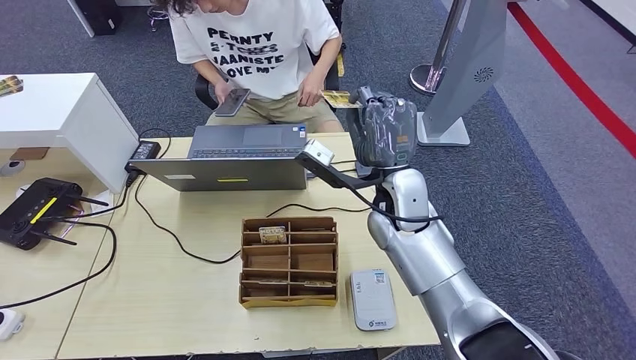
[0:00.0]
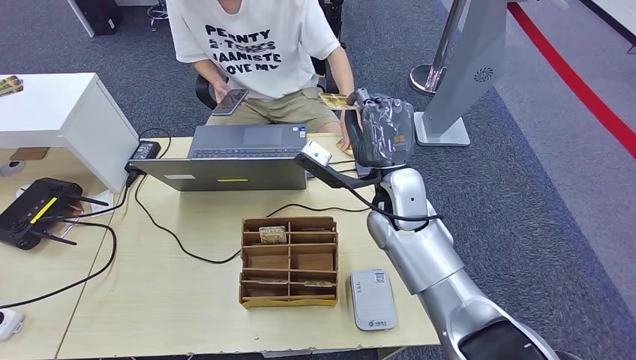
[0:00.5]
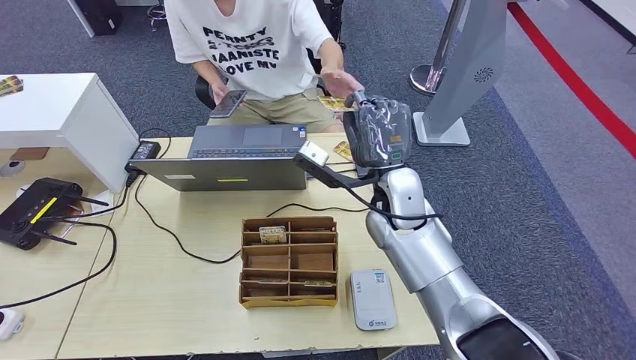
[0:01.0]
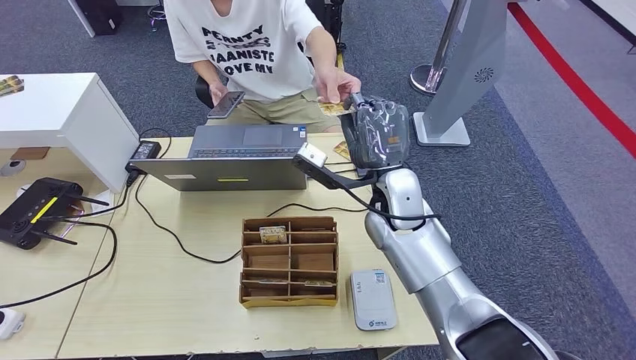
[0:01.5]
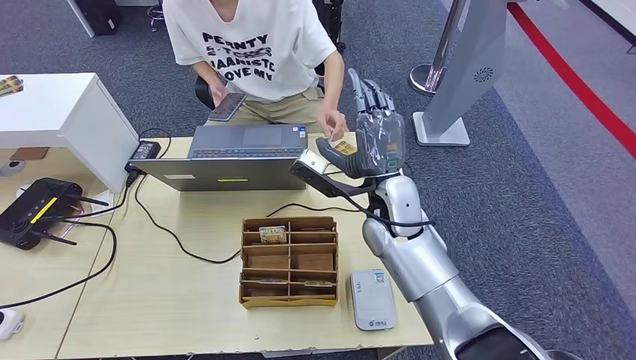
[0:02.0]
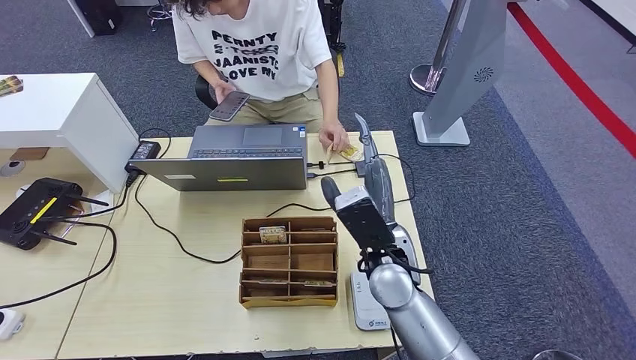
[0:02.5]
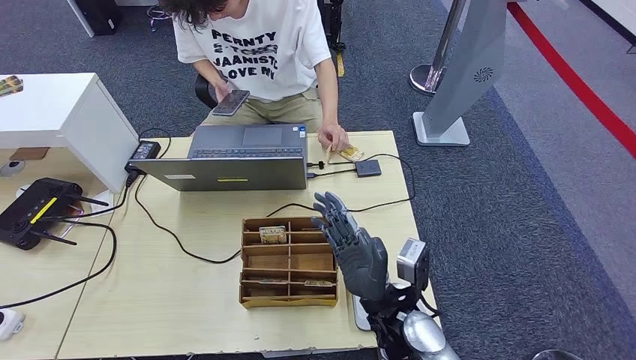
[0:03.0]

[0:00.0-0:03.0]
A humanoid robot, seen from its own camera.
Step, 0:00.0 to 0:03.0: Hand the room key to the person.
0:00.0 to 0:01.5: The two hands keep their place.
0:01.5 to 0:03.0: The right hand shifts about 20 cm backward and downward.

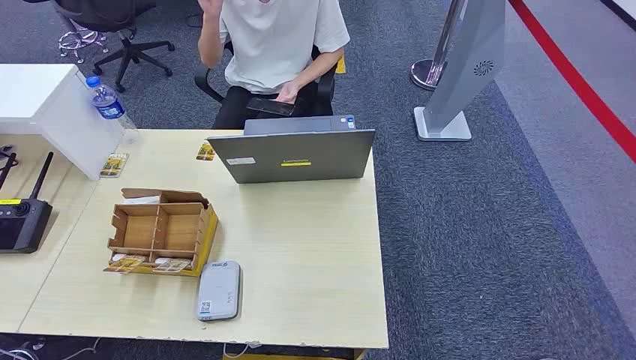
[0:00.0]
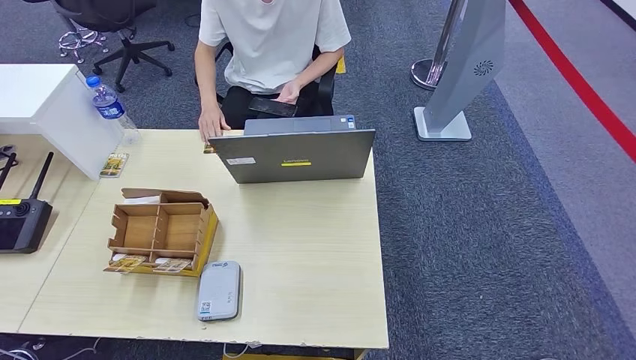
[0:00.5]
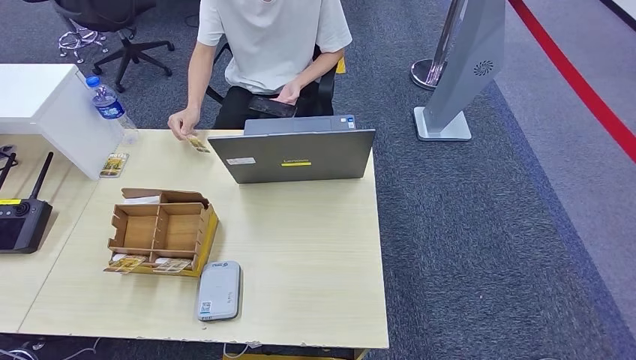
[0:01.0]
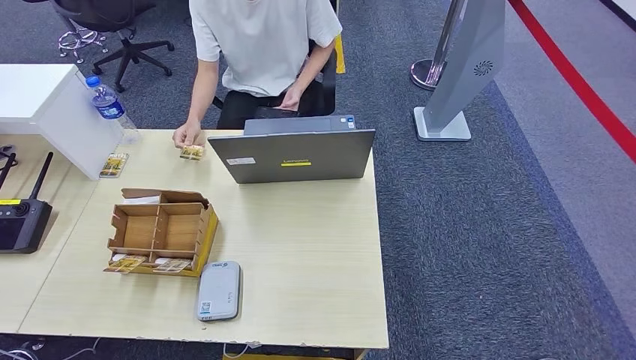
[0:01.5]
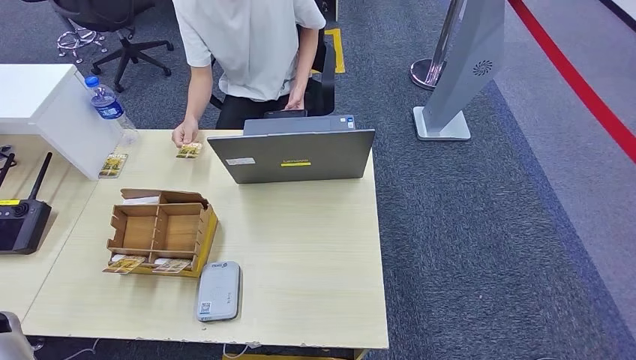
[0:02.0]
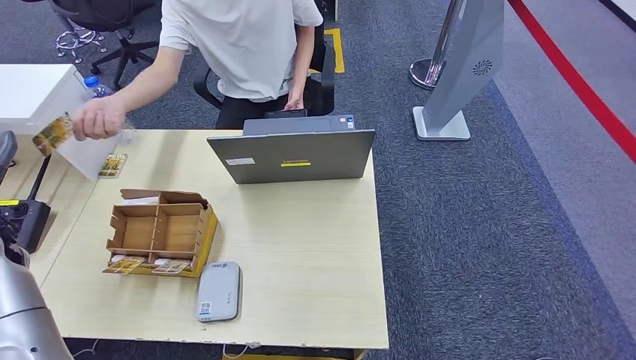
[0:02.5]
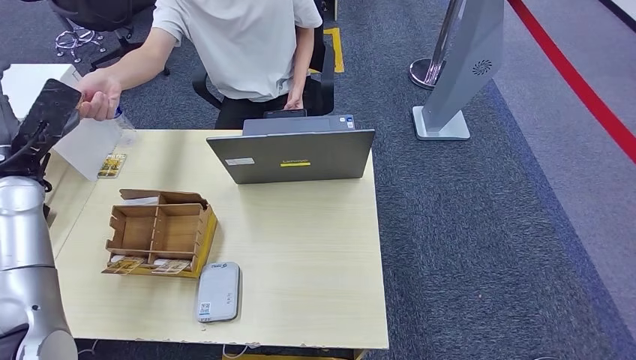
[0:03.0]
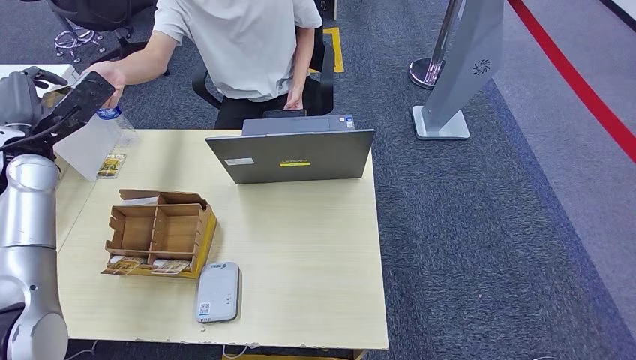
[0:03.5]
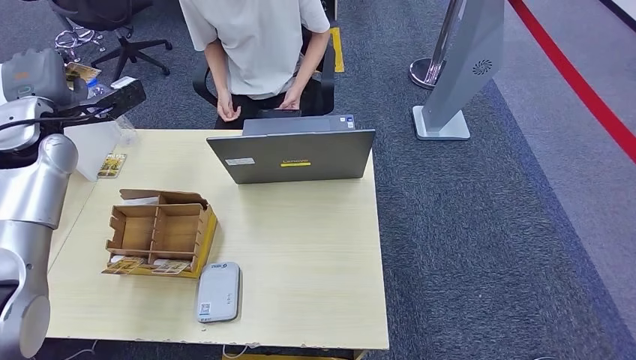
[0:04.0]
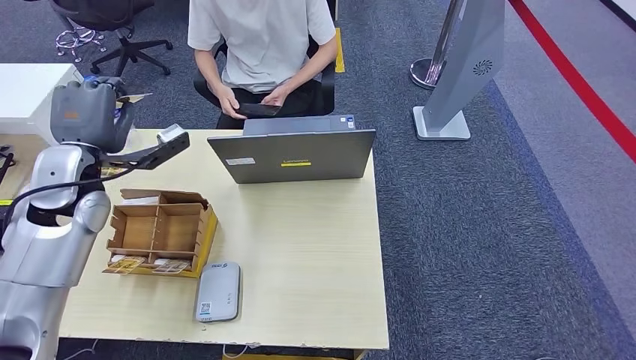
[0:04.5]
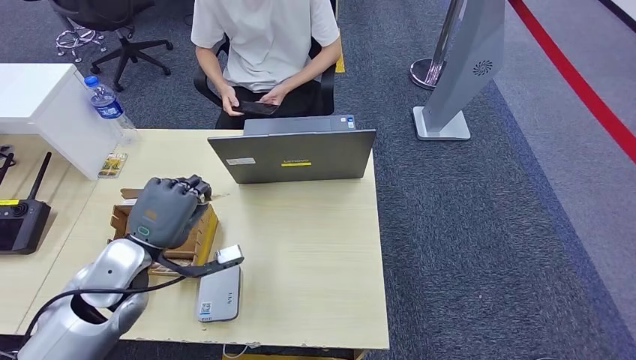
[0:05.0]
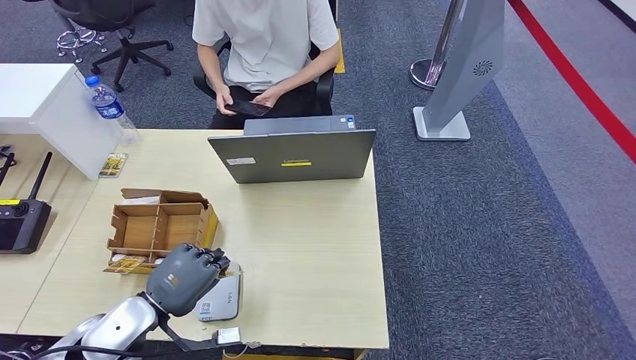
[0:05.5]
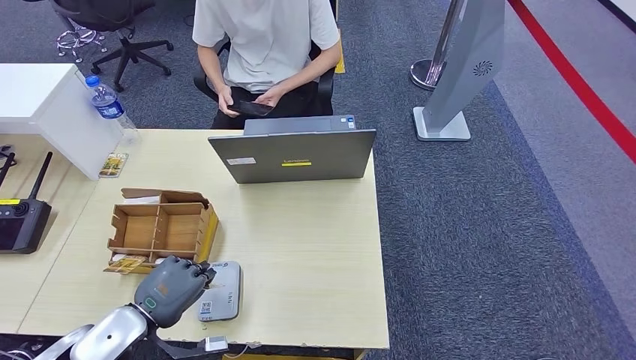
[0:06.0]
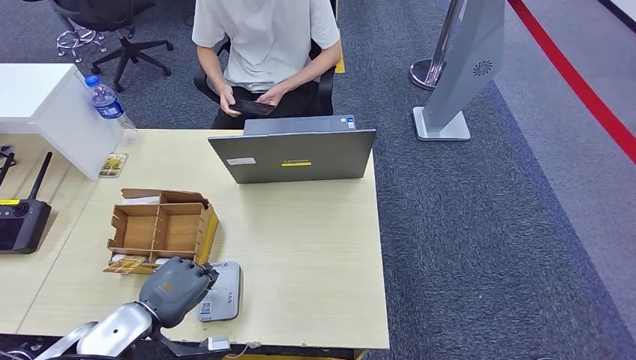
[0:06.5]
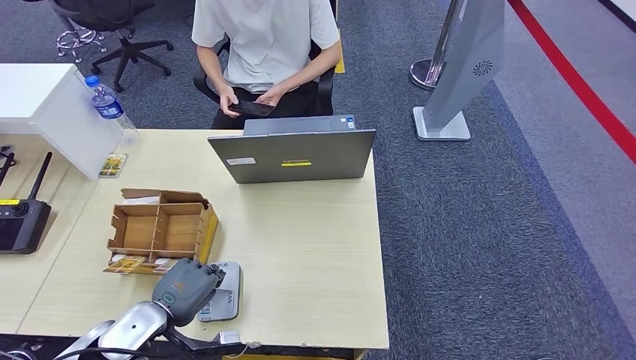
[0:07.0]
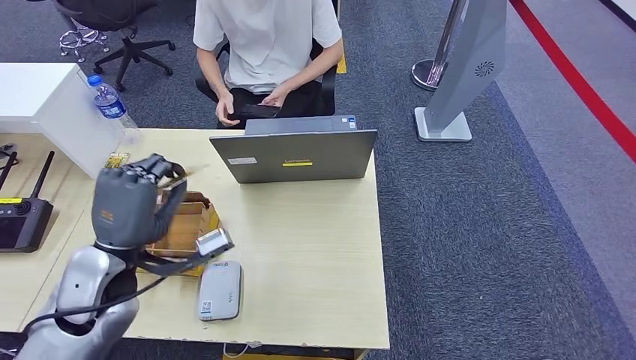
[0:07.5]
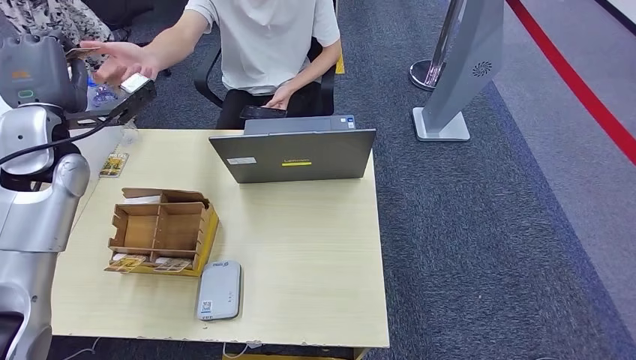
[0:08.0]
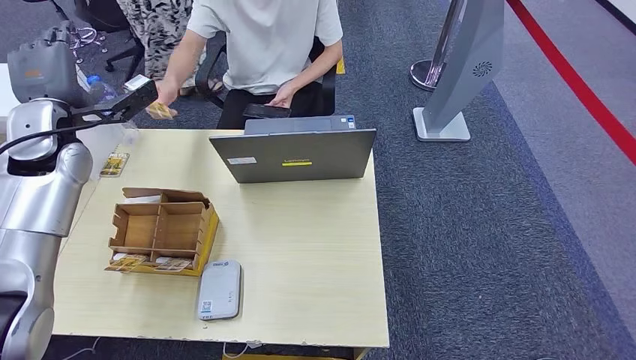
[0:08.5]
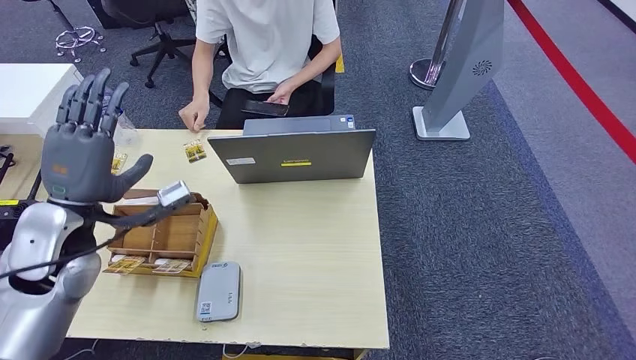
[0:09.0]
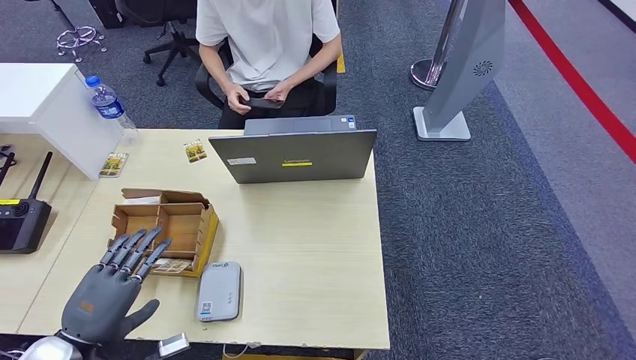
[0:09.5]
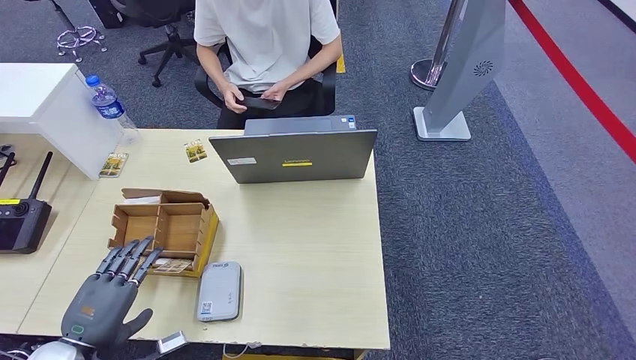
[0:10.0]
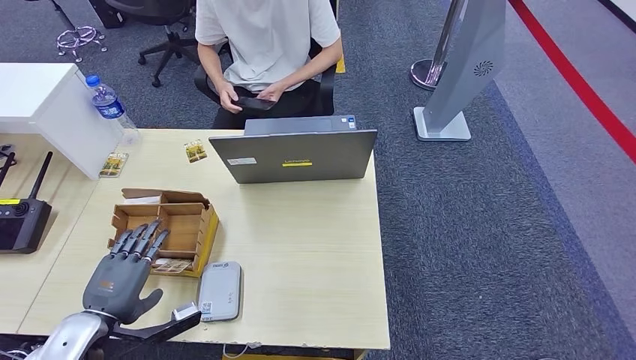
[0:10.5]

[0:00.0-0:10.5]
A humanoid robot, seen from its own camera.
Step, 0:00.0 to 0:03.5: Take the ID card from the person's hand.
Step, 0:04.0 to 0:06.5: Place the ID card on the card reader.
Step, 0:07.0 to 0:08.5: Hand the ID card to the person.
0:02.0 to 0:04.0: The left hand moves forward, upward and to the right, approximately 30 cm.
0:04.0 to 0:06.5: The left hand travels backward, downward and to the right by about 35 cm.

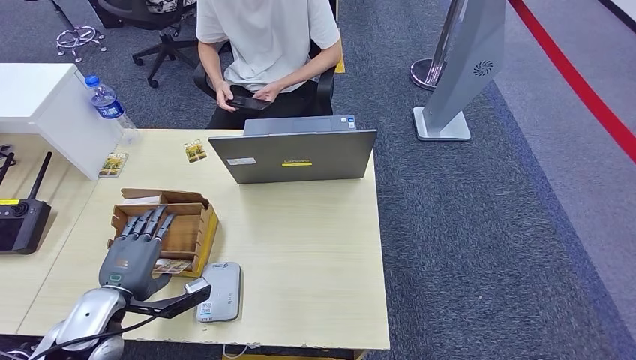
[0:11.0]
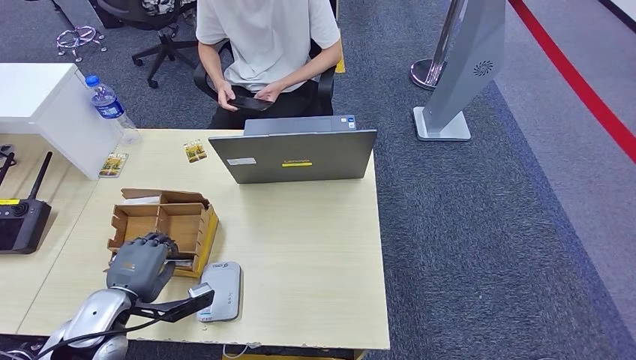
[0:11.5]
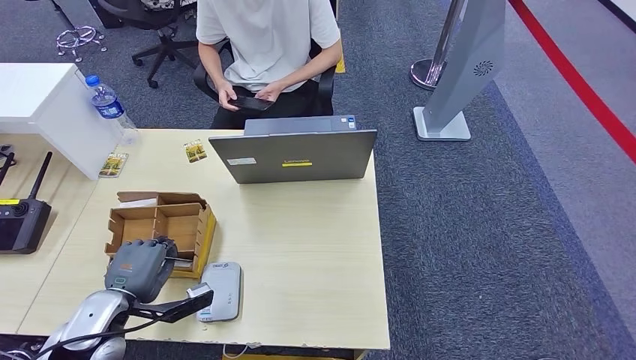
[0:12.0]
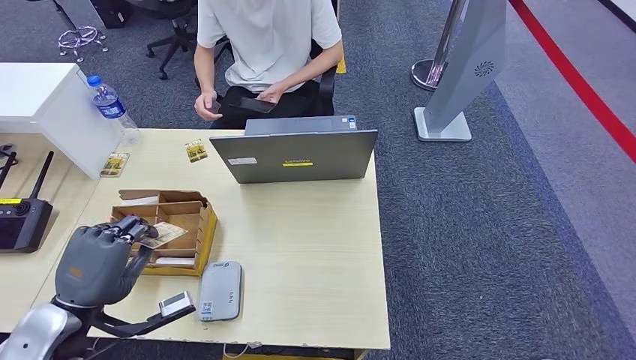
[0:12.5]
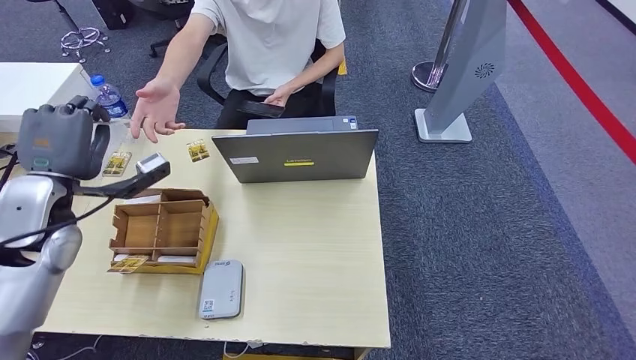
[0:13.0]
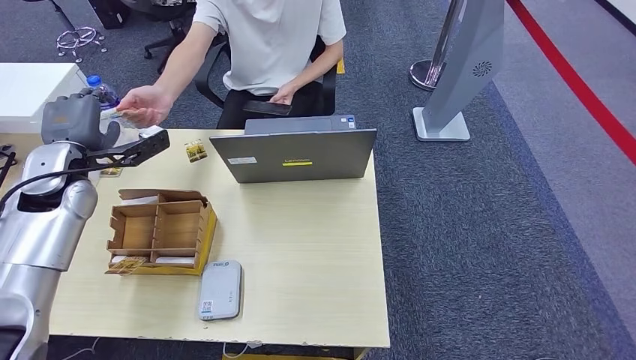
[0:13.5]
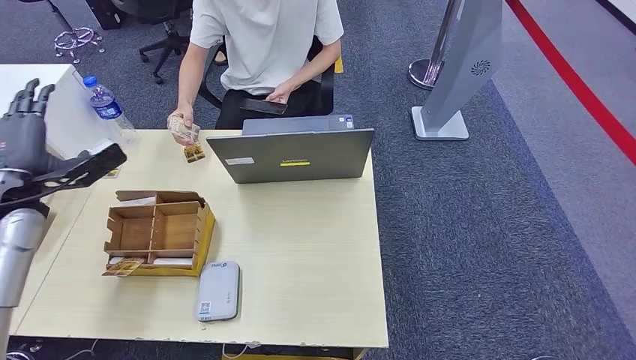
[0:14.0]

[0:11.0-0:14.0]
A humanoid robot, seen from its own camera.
Step, 0:13.0 to 0:14.0: Hand the room key to the person.
0:11.0 to 0:12.5: The left hand is displaced upward by about 5 cm.
0:12.5 to 0:14.0: The left hand heads forward and to the left, covering roughly 20 cm.
